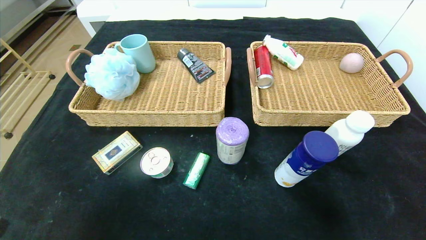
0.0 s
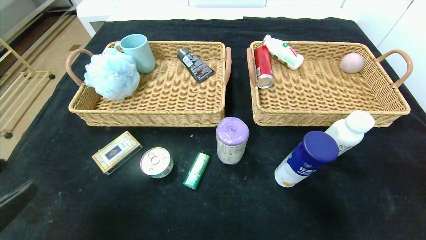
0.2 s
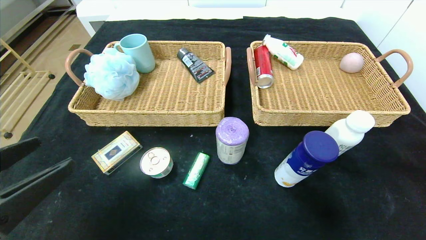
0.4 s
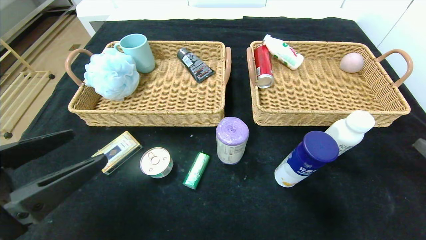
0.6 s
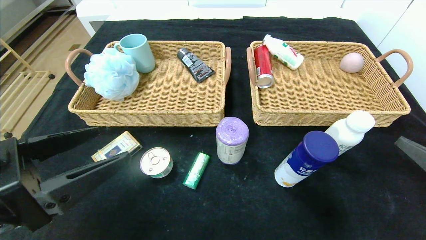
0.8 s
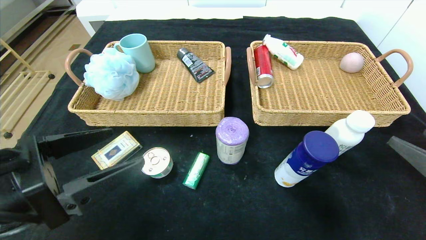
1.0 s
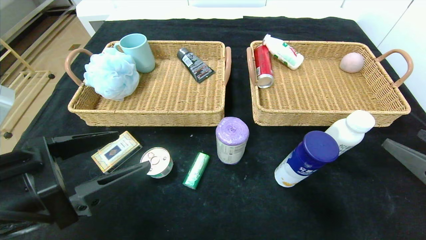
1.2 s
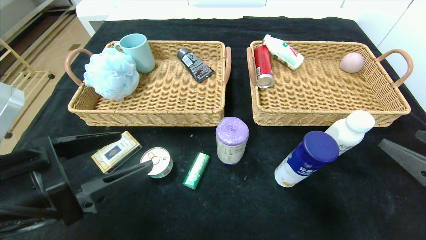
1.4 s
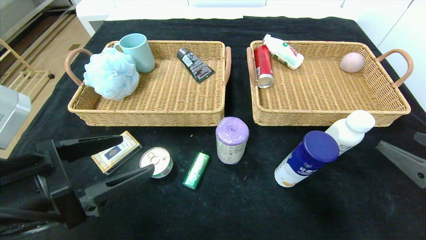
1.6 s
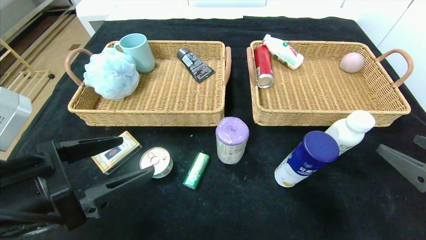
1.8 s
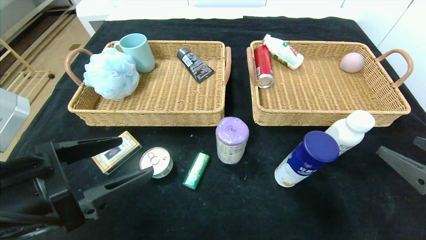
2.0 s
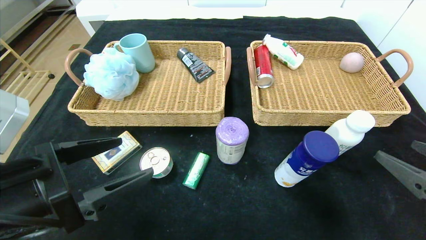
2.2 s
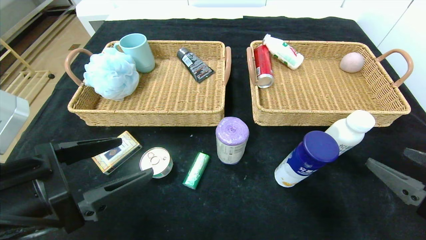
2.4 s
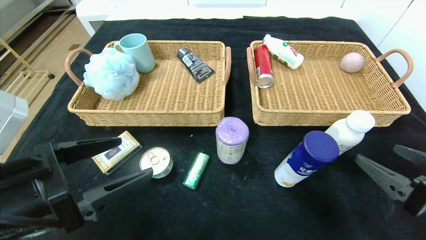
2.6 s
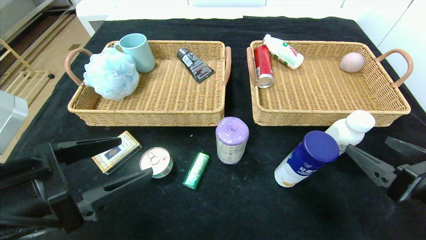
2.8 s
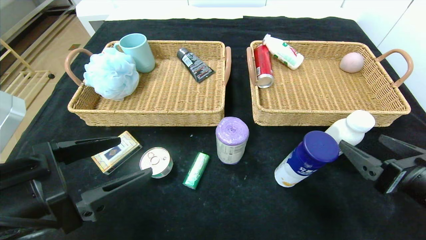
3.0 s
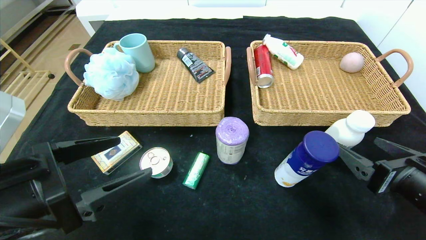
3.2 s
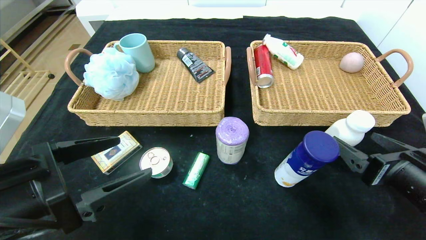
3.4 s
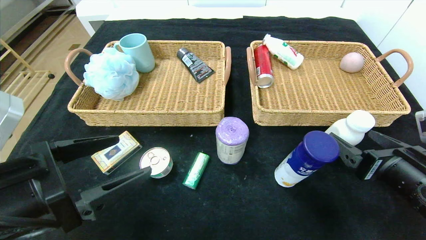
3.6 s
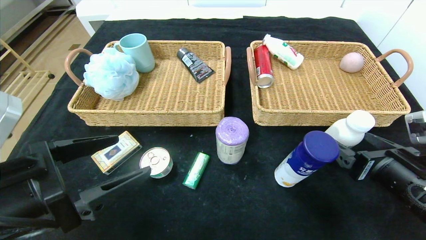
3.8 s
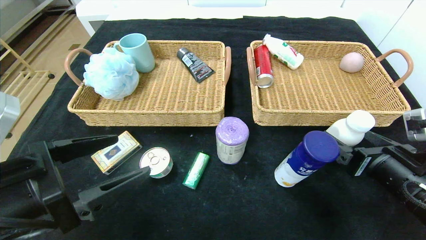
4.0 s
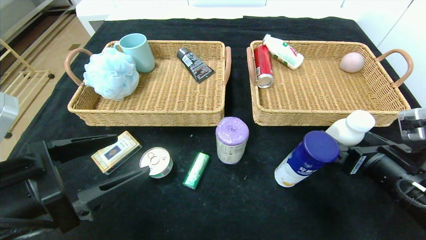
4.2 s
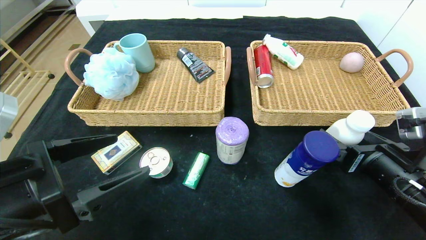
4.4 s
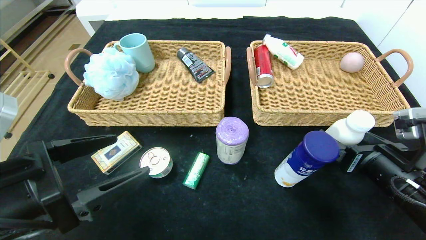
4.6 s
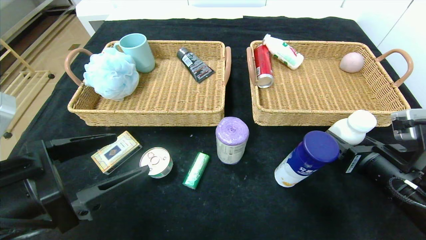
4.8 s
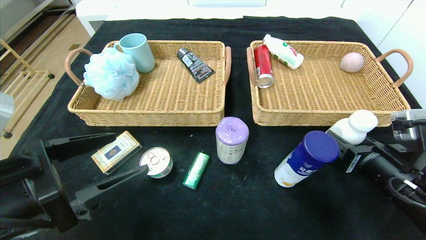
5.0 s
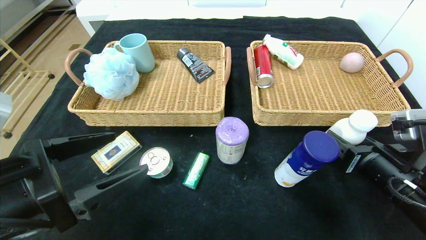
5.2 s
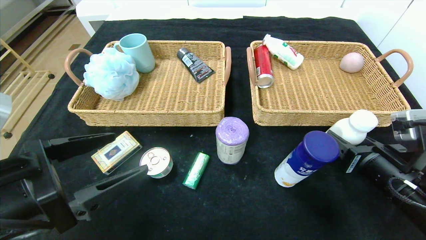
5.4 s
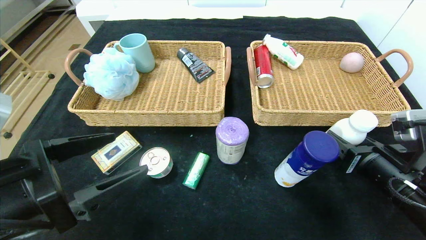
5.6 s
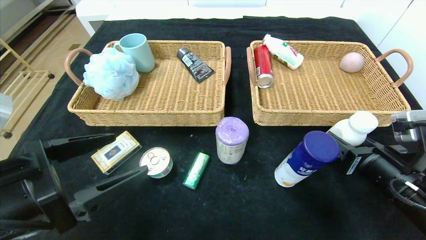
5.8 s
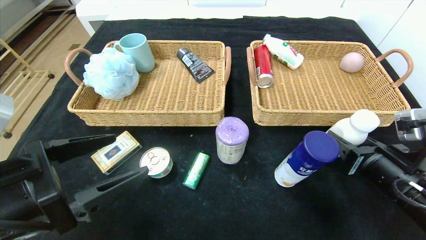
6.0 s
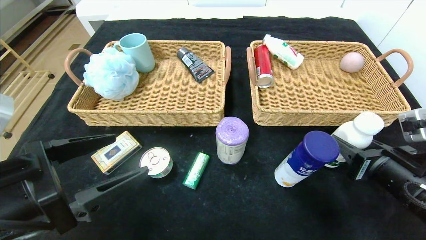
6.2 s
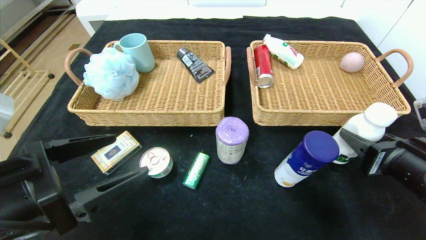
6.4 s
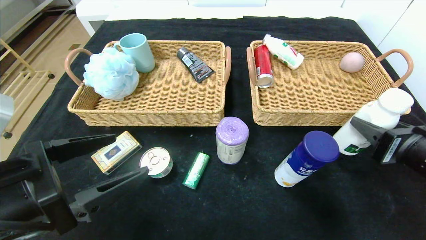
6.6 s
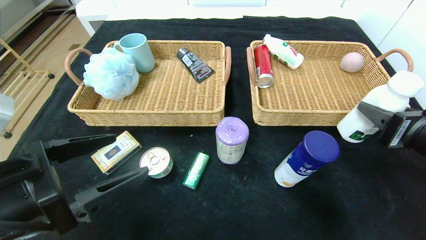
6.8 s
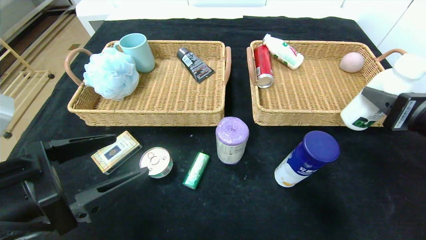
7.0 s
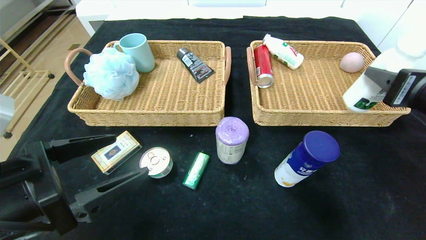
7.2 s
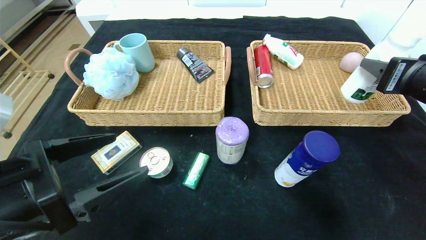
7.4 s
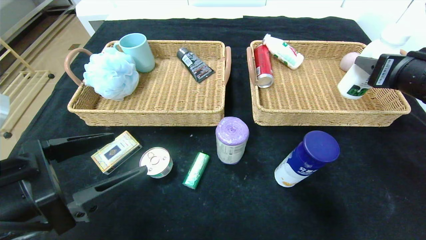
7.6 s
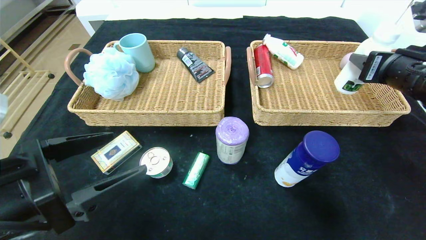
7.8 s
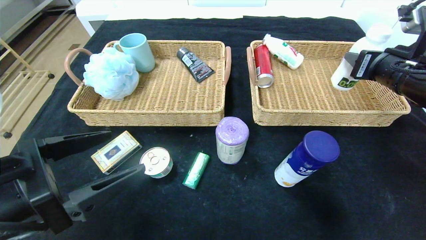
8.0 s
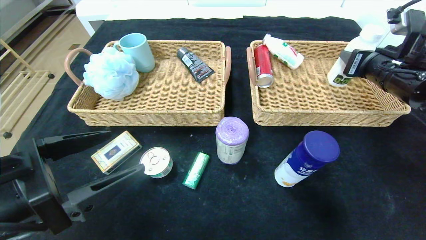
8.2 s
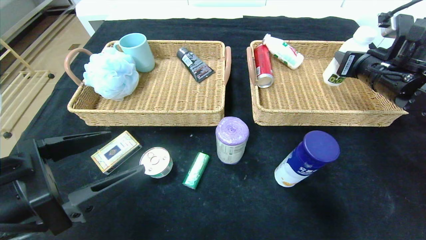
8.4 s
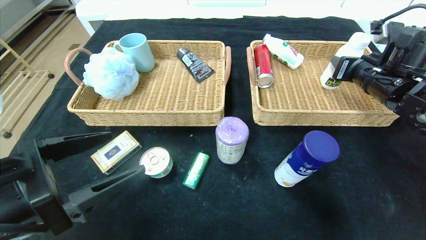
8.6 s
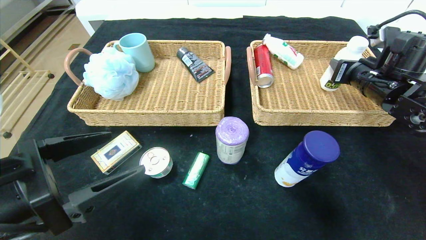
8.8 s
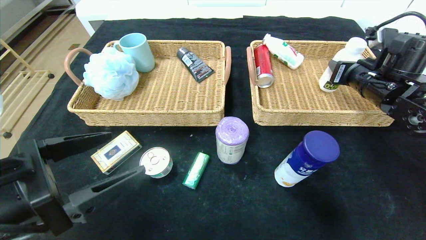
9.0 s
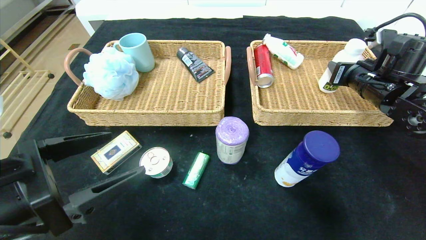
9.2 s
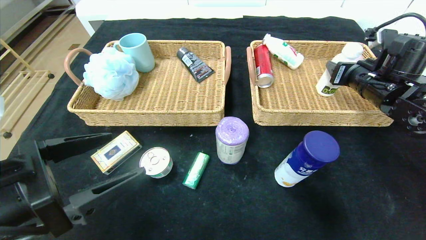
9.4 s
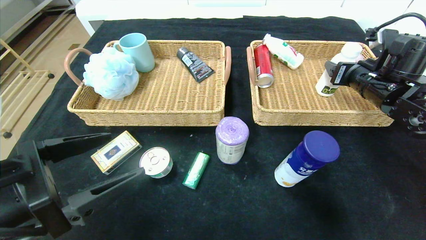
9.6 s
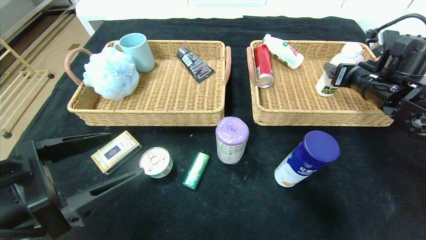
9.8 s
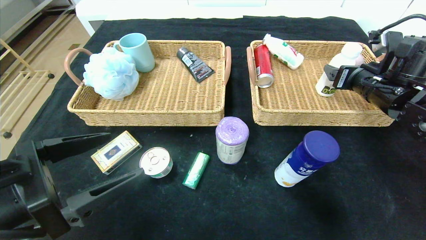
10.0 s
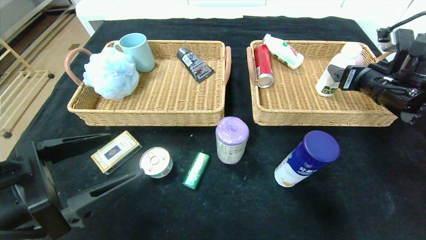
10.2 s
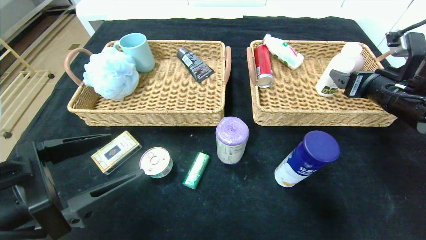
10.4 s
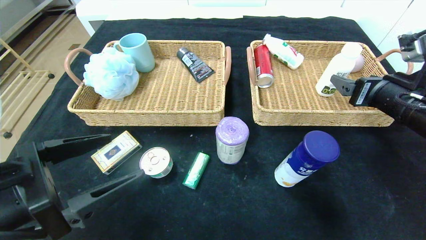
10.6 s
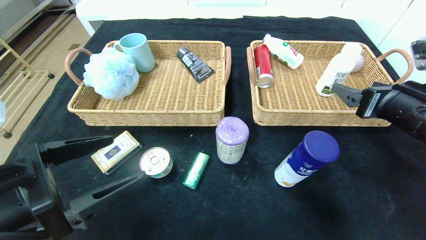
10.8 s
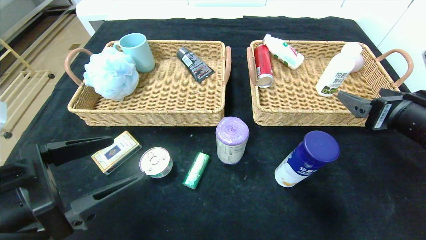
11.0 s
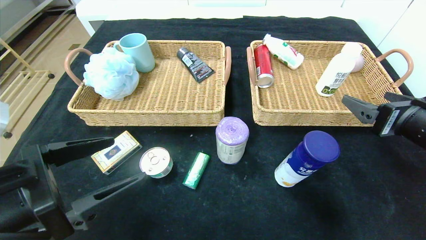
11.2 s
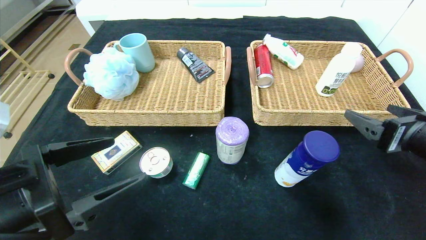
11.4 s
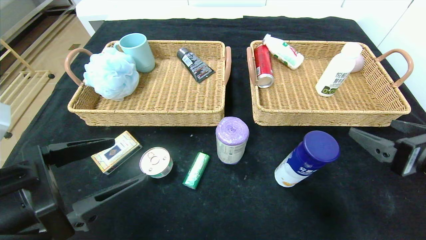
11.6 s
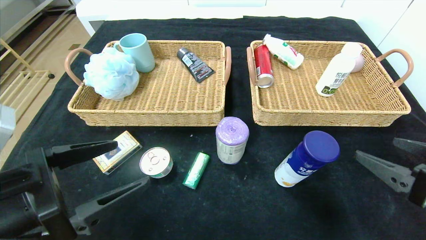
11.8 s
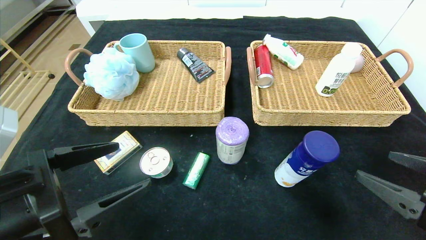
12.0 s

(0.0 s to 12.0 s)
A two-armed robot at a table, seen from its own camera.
Step, 0.0 s - 9.8 s: Grasp the milk and put it in the right basket.
0.0 s - 1.6 s: The right gripper goes some 15 cm forward and upward; the left gripper is displaced forward and to the right by approximately 15 cm.
1.6 s - 3.0 s: The right gripper changes place by approximately 5 cm.
3.0 s - 4.4 s: The right gripper ends up roughly 5 cm from where it was.
4.4 s - 6.0 s: The right gripper closes.
6.0 s - 7.6 s: The right gripper moves upward and forward, some 15 cm.
7.6 s - 9.0 s: The right gripper travels forward by roughly 10 cm.
9.0 s - 10.4 s: The right gripper travels backward by roughly 5 cm, and opens.
10.4 s - 12.0 s: The right gripper travels backward by approximately 20 cm.

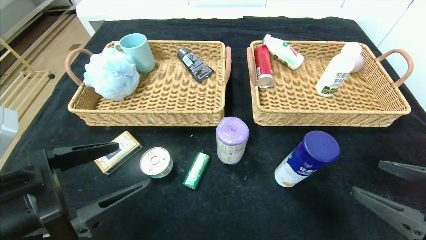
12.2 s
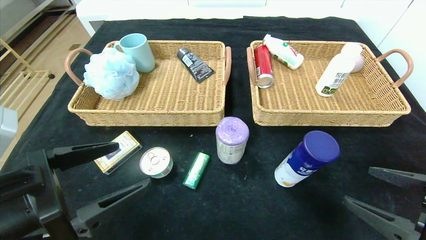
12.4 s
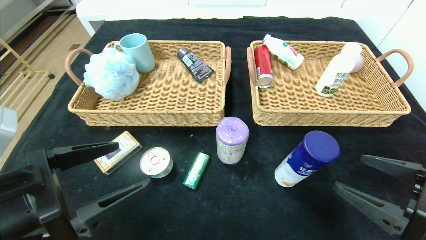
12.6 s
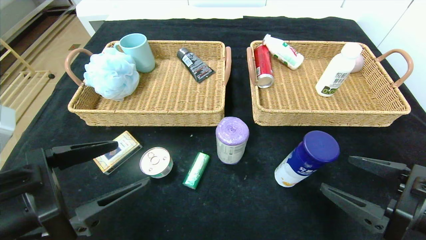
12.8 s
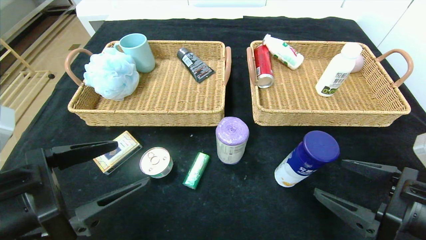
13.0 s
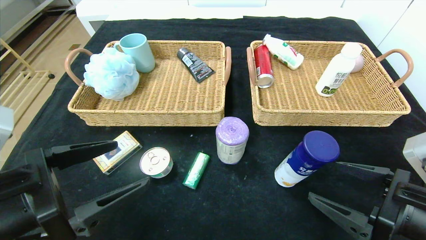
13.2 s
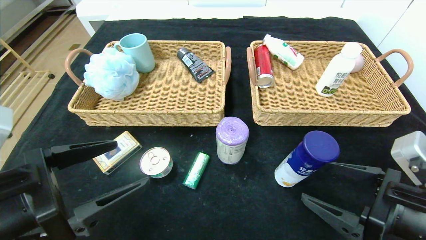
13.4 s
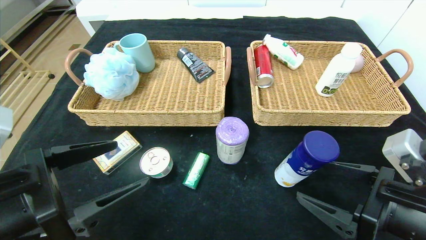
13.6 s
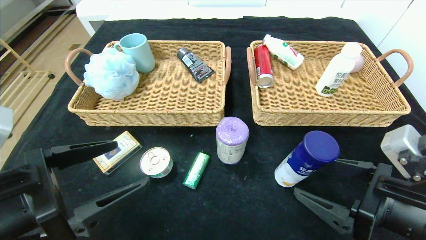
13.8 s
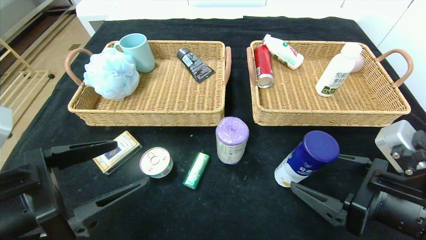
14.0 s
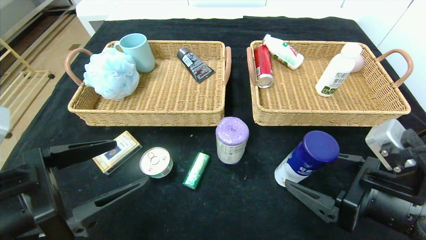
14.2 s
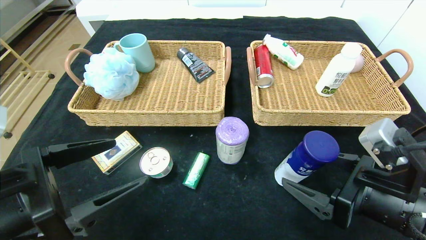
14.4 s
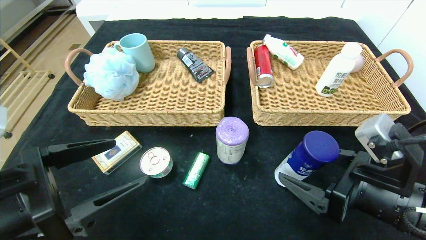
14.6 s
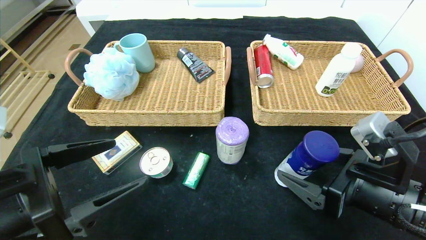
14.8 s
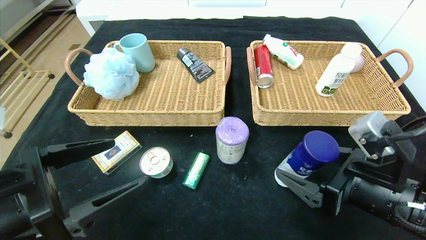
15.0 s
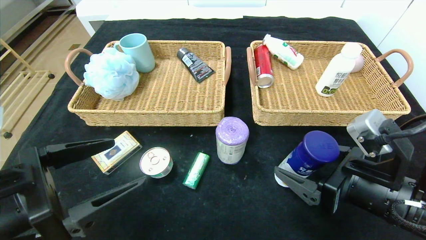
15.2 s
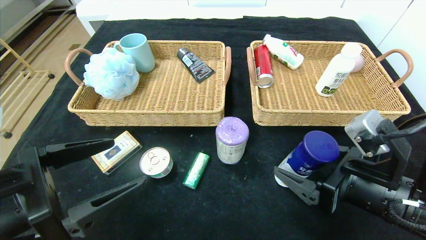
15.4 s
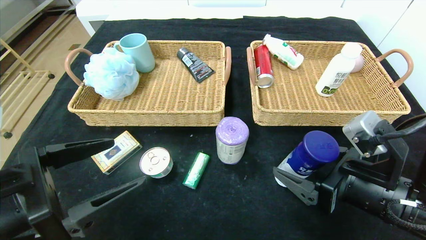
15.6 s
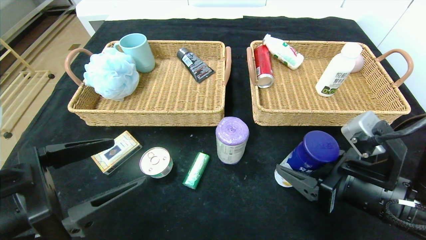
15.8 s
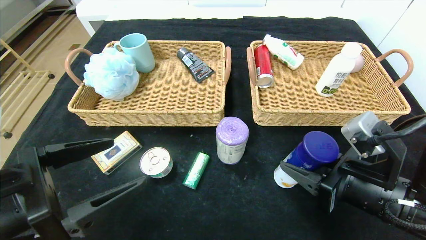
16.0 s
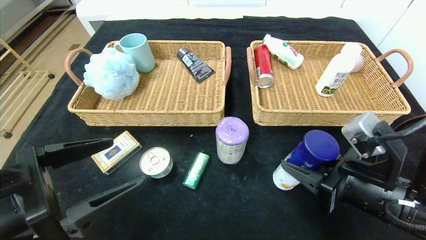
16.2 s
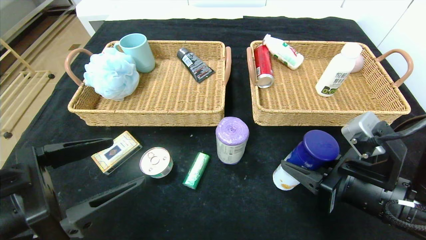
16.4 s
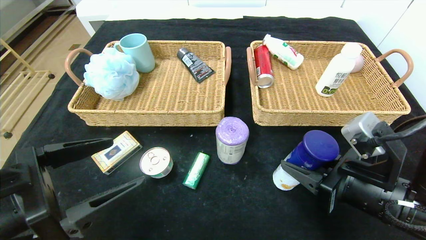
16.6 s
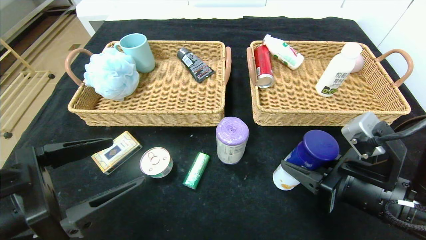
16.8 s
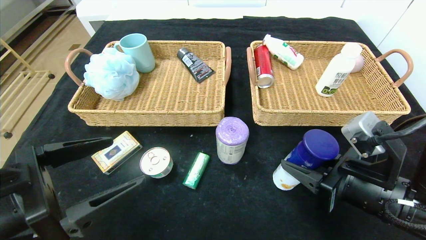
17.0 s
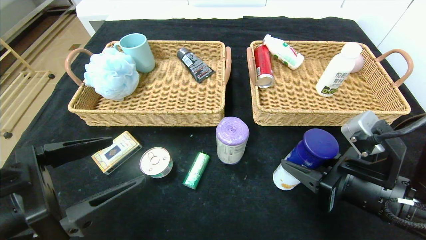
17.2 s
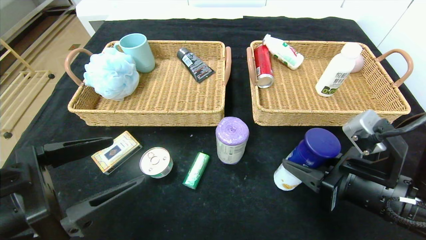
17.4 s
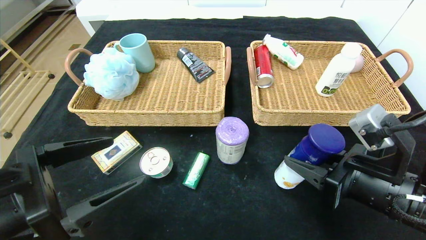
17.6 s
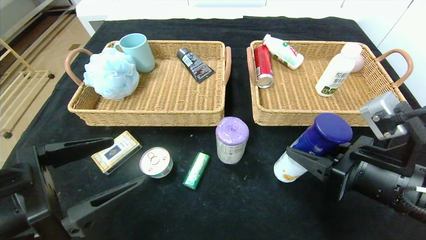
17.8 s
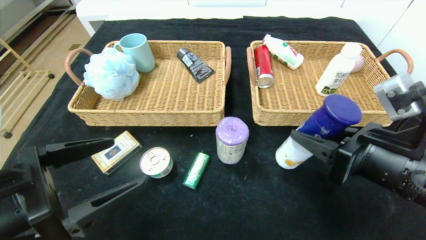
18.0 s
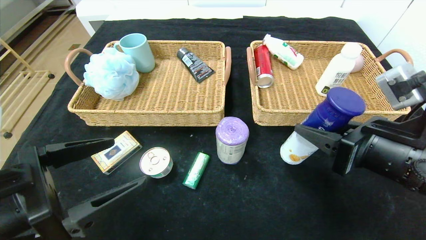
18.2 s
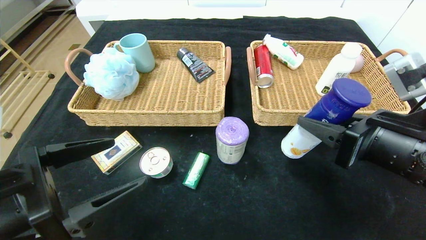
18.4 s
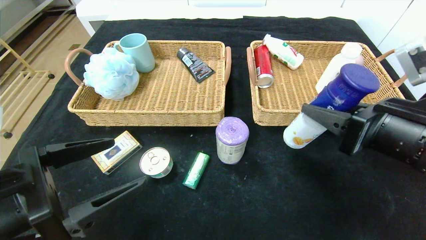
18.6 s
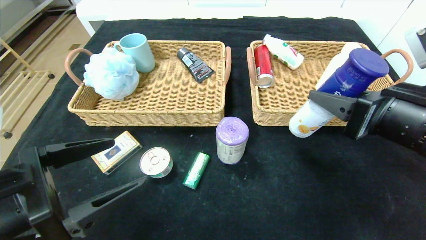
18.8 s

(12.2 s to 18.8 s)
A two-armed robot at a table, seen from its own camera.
12.2 s - 13.8 s: The right gripper is displaced to the left by about 5 cm.
13.8 s - 15.4 s: The grippers make only small movements.
15.4 s - 17.2 s: The right gripper closes its fingers.
17.2 s - 18.8 s: The right gripper moves upward, roughly 10 cm.
